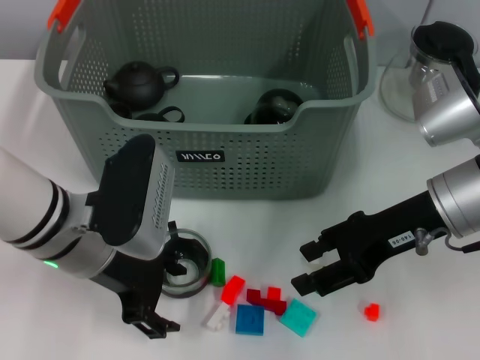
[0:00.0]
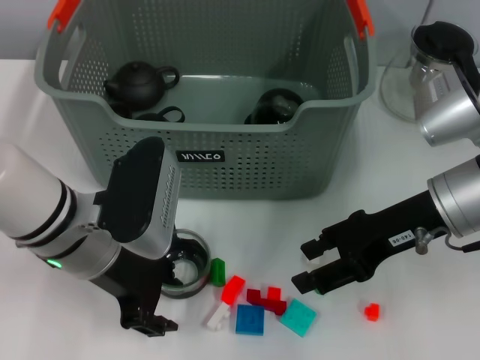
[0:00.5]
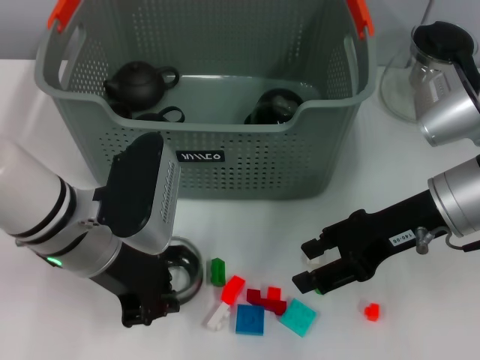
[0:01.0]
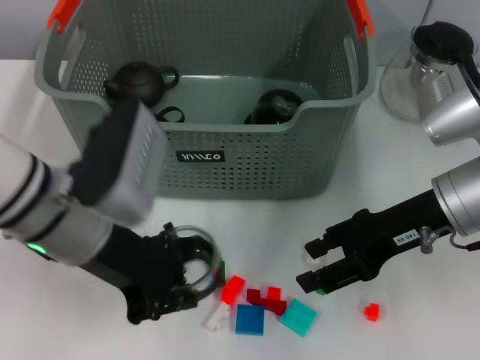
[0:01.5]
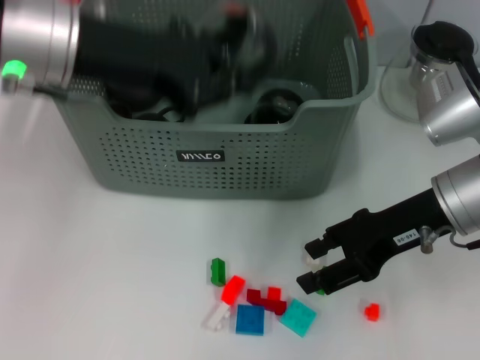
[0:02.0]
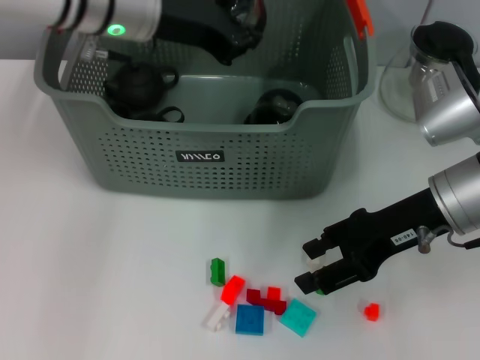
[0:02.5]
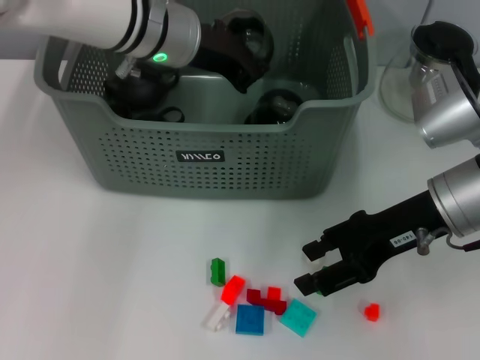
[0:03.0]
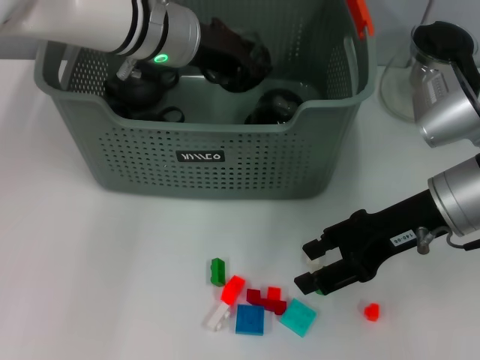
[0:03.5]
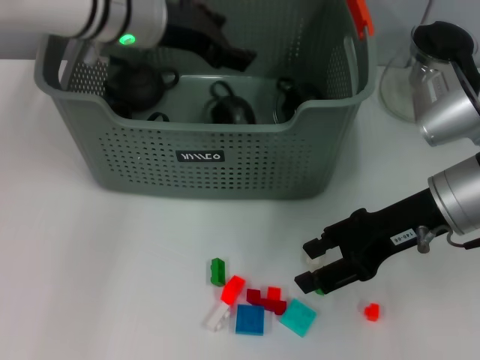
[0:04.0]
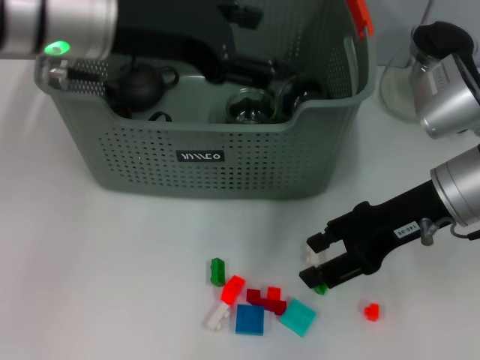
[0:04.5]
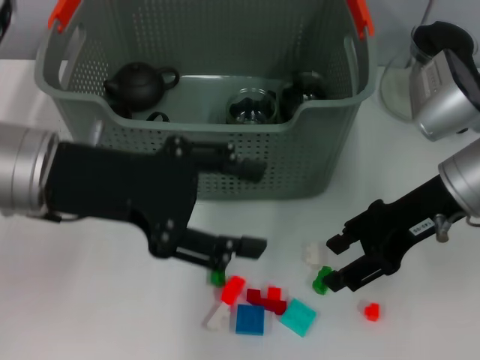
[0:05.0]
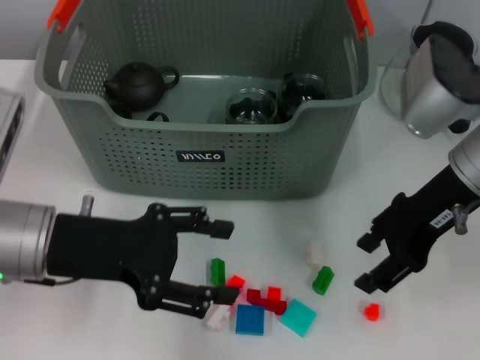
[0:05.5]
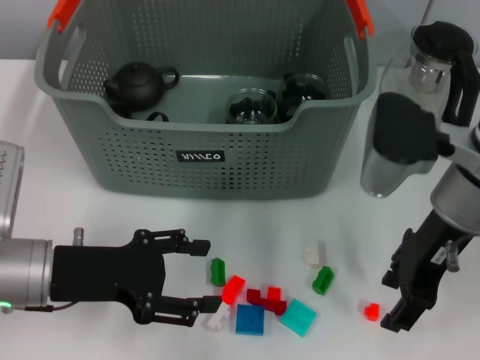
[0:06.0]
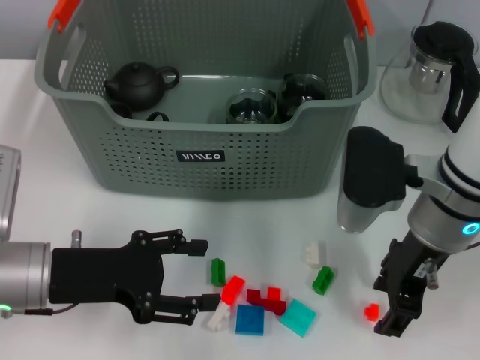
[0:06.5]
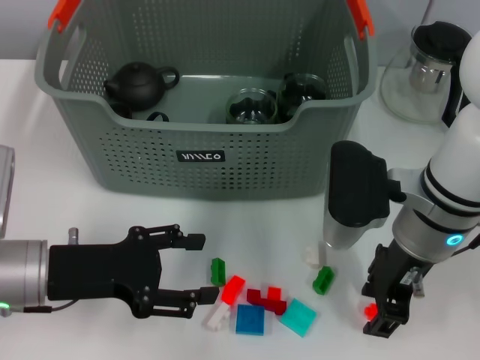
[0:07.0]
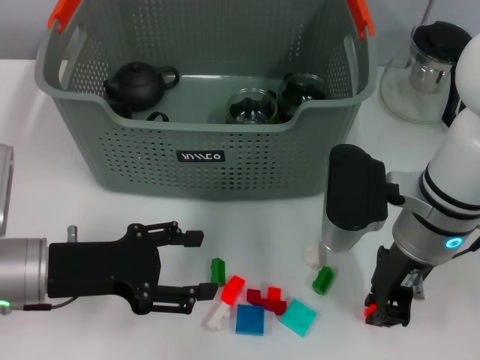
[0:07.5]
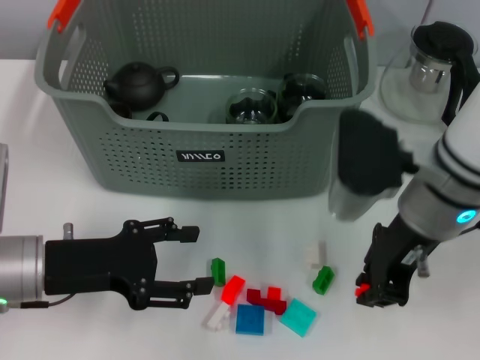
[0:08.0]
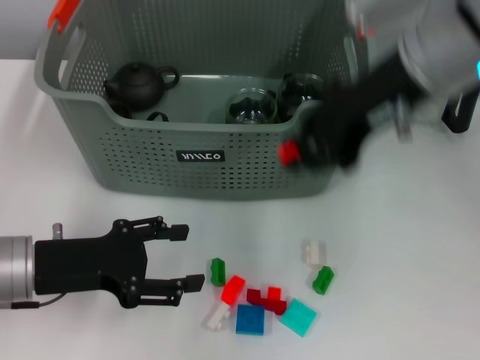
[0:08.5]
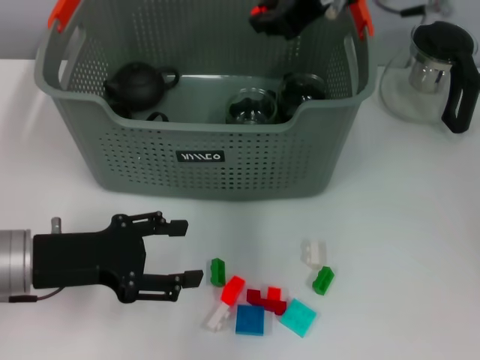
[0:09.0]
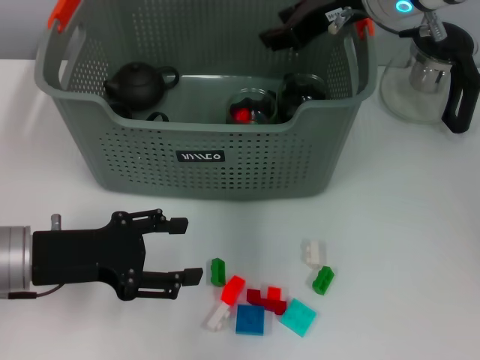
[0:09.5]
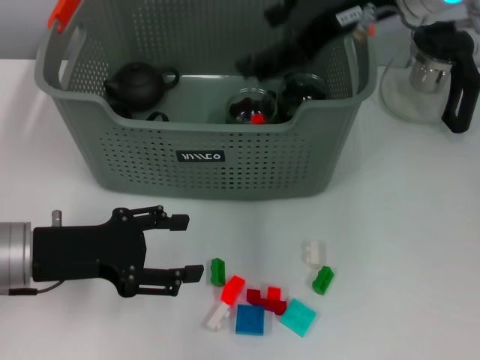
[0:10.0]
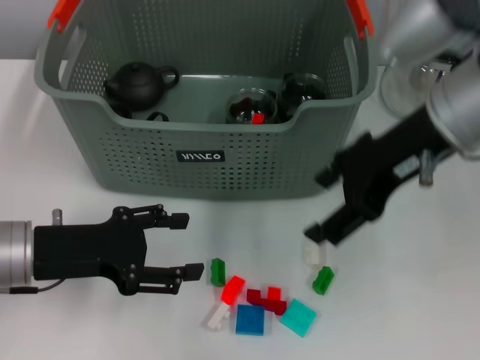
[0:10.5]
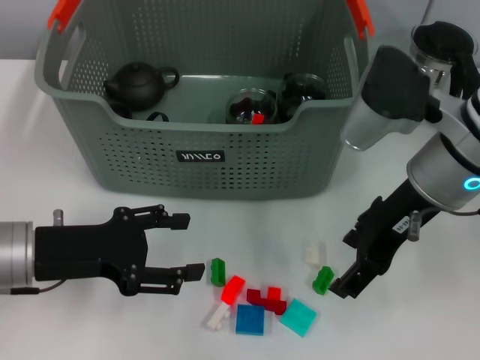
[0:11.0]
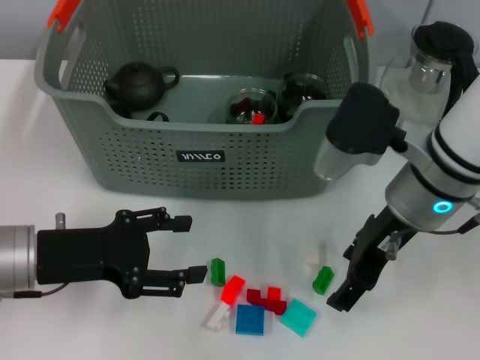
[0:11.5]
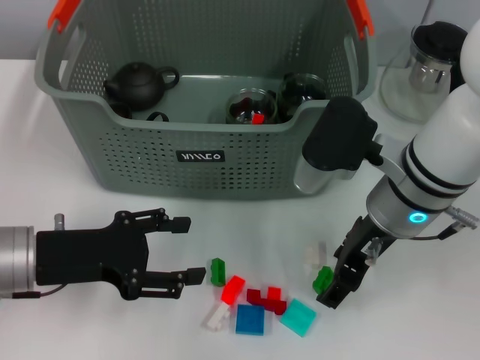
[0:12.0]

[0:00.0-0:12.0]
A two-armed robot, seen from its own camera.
Task of the whole recording: pick up the teacup on the table and place it into the storage bin, pick up the block on the table and place it into the storage bin.
Step, 0:01.5 to 0:04.0: Place the cup in the storage box with left gripper.
Step, 0:04.5 to 0:07.0: Grasp the orange block with right gripper.
Step, 0:08.0 to 0:09.5: Place the orange block in the storage box with right gripper.
0:00.0 to 0:02.0: The left gripper goes about 15 cm upward, and closes its fingers.
0:02.0 to 0:04.0: The left gripper goes about 10 cm forward, and opens.
0:04.0 to 0:06.0: The left gripper is displaced backward, downward and to the left by about 25 cm.
0:06.0 to 0:08.0: The right gripper closes its fingers.
0:08.0 to 0:10.0: The right gripper moves up and down over approximately 15 cm, changing direction 2 times, and opens up.
0:10.0 to 0:12.0: The right gripper moves downward, about 15 cm.

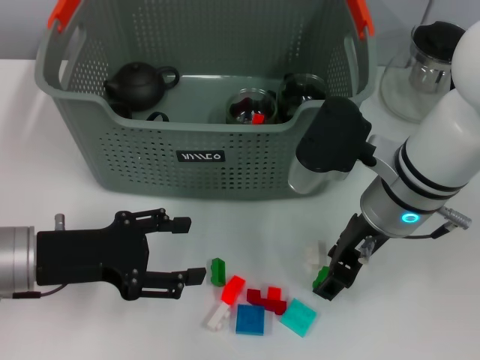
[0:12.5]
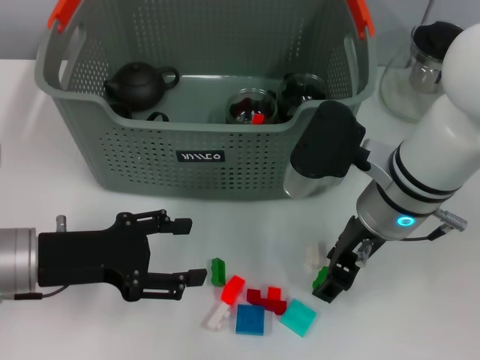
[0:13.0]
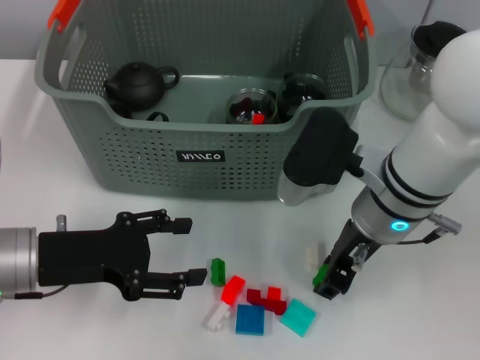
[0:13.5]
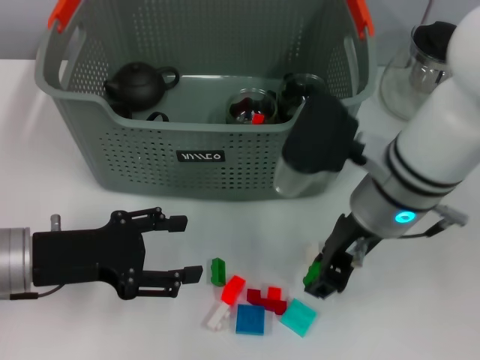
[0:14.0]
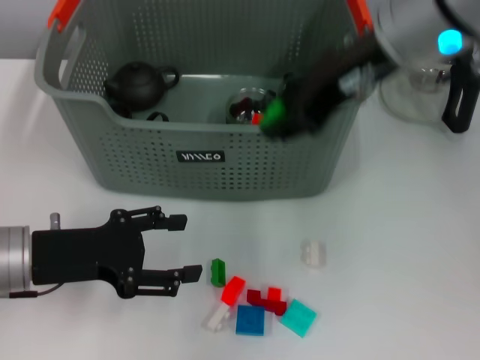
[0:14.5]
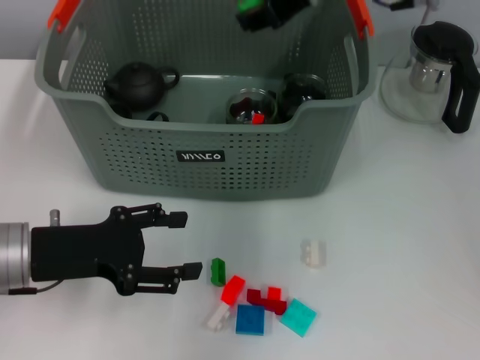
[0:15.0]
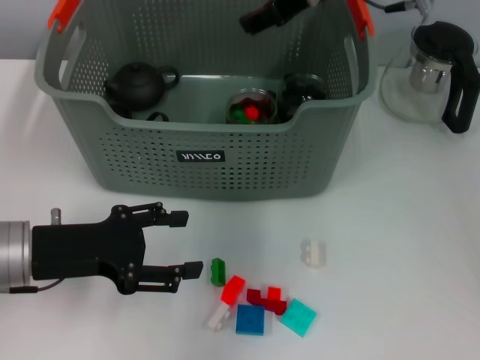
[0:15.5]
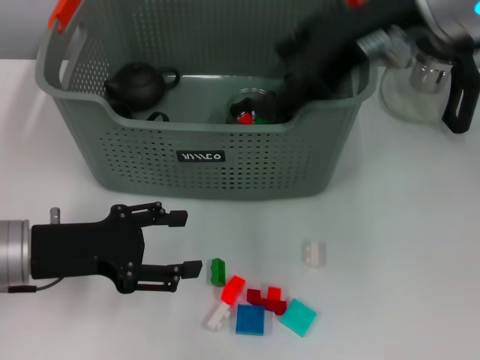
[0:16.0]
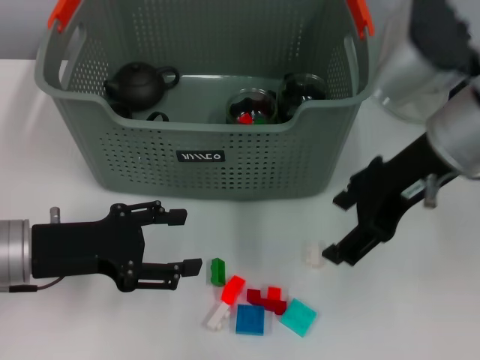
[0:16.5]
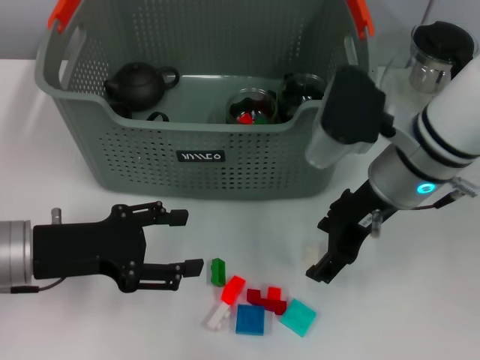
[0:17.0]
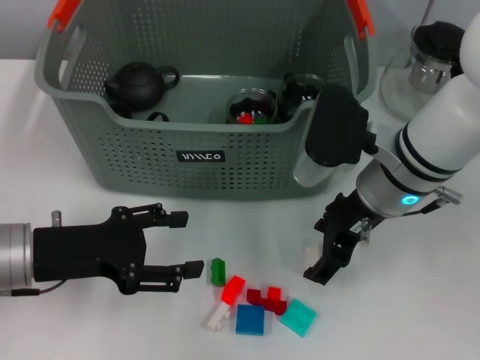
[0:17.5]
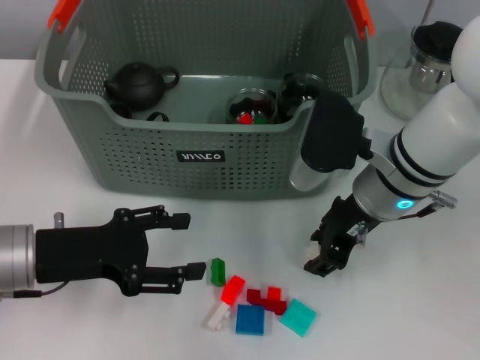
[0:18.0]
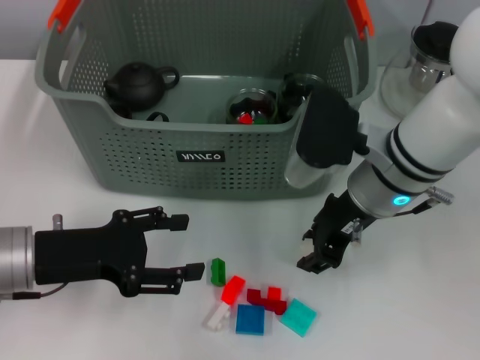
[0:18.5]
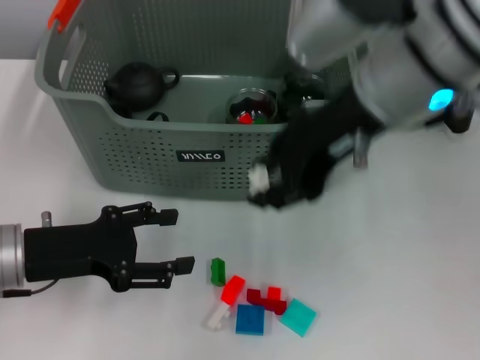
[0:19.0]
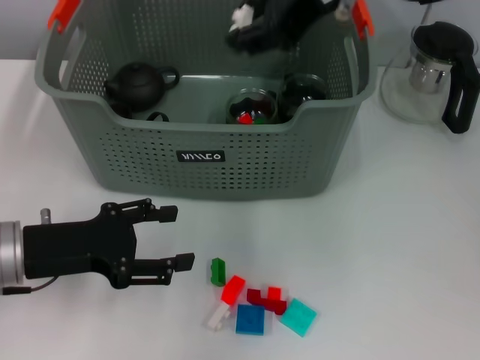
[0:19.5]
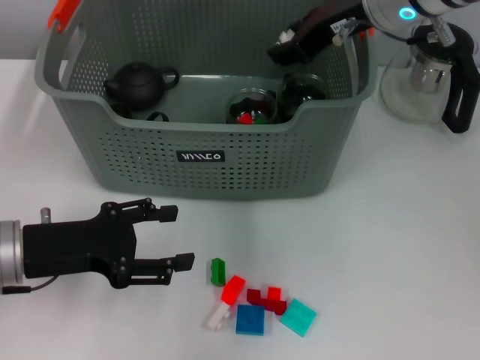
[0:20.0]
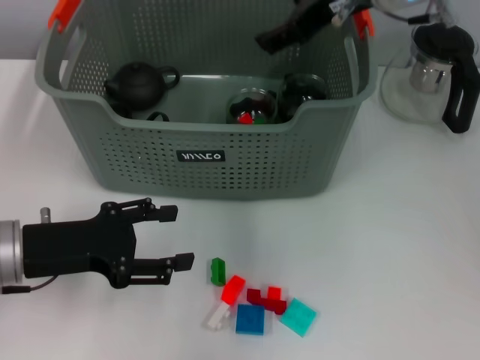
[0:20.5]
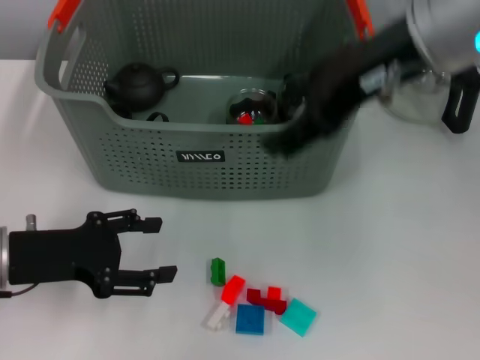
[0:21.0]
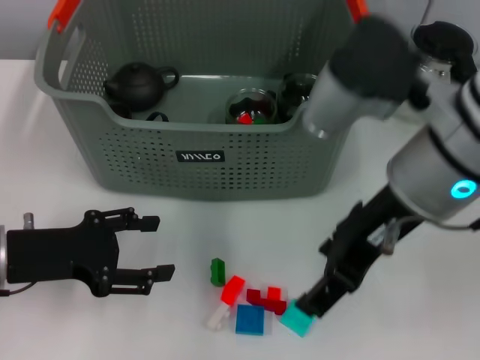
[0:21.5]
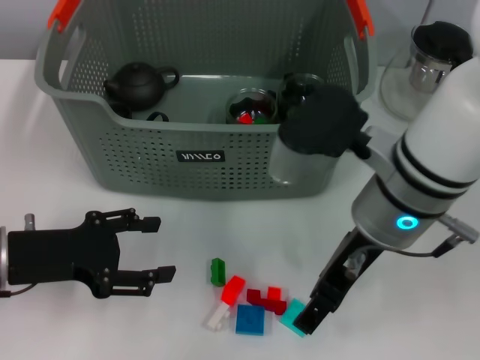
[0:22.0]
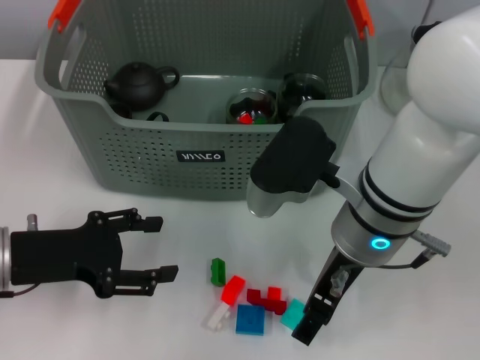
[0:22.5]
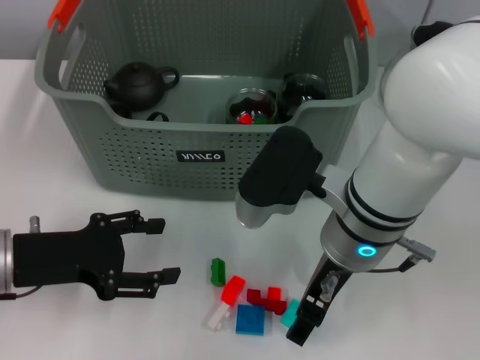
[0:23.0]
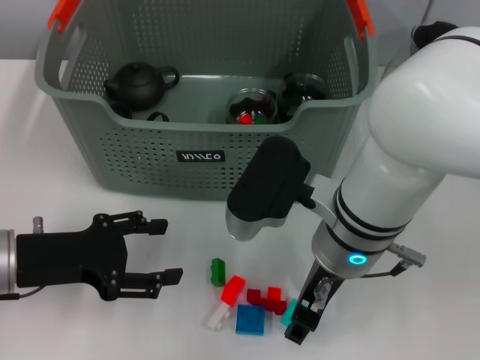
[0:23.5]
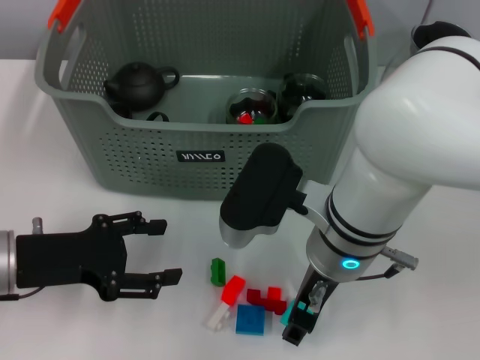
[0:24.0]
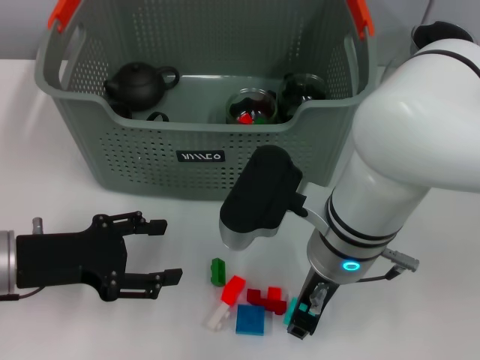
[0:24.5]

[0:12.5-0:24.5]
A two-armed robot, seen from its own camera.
Task of the whole recording: pick up the teacup on the table and place it into the storage bin, pick up the block on the table and place it into the storage bin.
Step, 0:14.0 to 0:15.5: Place the green block in the storage box with right gripper.
Step, 0:16.0 to 0:18.0: Grasp the white block with right gripper.
Step, 0:18.5 to 0:20.5: Place the white block in the storage box with right gripper.
Step, 0:21.0 to 0:24.5: Grasp the light blue block with right gripper.
0:12.5 to 0:14.5: The right gripper moves upward, some 20 cm.
0:14.5 to 0:16.5: The right gripper moves downward and to the right, some 10 cm, moves approximately 10 cm forward and comes back, and opens.
0:16.5 to 0:18.5: The right gripper heads downward, covering roughly 10 cm, and closes its fingers.
0:18.5 to 0:20.5: The right gripper moves upward and forward, about 15 cm, and opens.
0:20.5 to 0:22.5: The right gripper goes roughly 15 cm backward and downward.

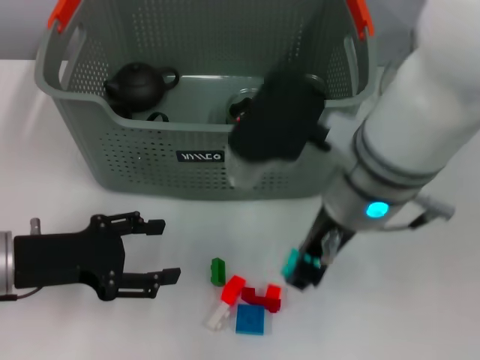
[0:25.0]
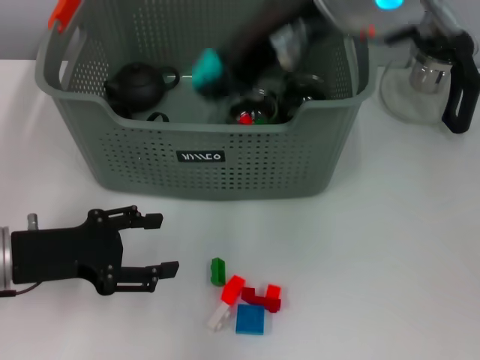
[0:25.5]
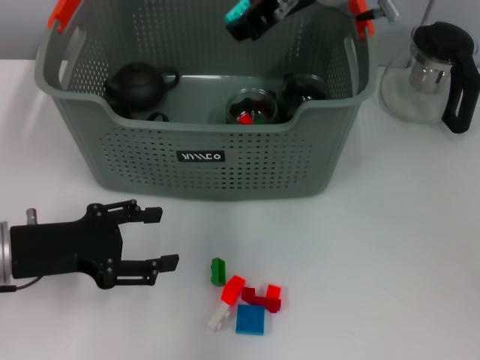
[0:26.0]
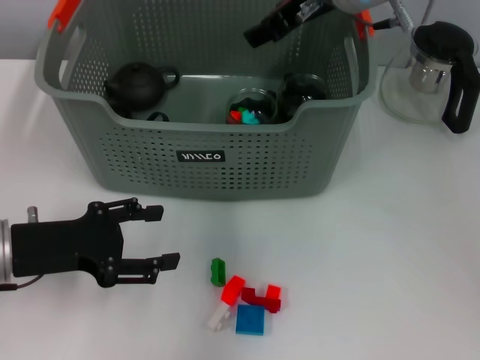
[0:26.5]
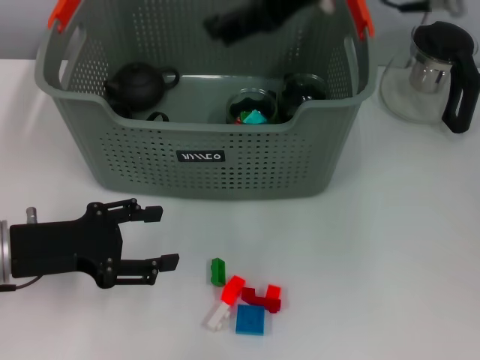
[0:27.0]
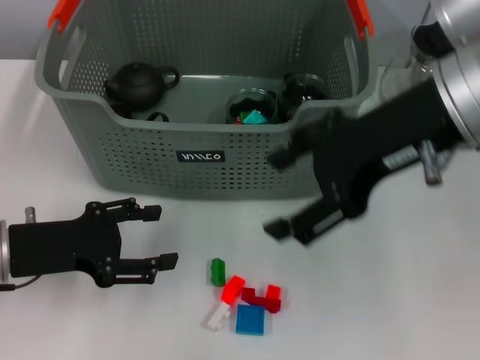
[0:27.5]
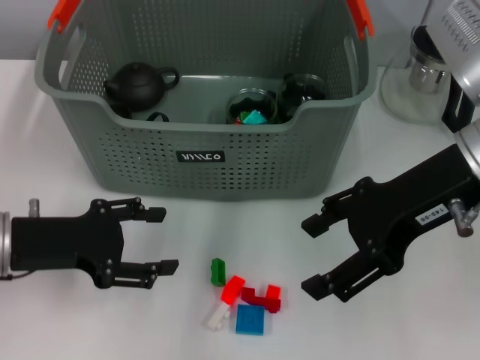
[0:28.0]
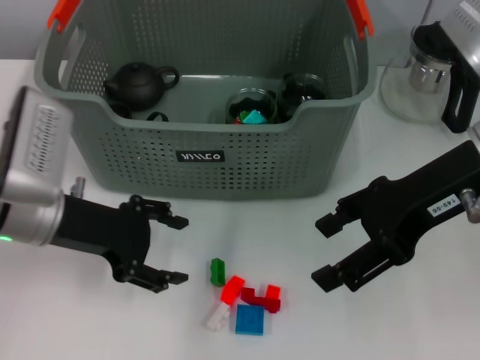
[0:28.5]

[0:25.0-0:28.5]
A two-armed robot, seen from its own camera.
Task of the whole recording: pick up the teacup on the table and place it into the storage bin, pick up the block on the table and place it into the storage bin.
Step, 0:25.0 to 0:26.5: Place the light blue block in the storage box with right gripper.
0:25.0 to 0:27.0: The right gripper goes up and down, some 15 cm each way, reversing 2 times, and opens its fingers.
0:27.0 to 0:28.5: The left gripper ends up roughly 5 cm from where it was, while the right gripper is displaced downward, to the right and backward by approximately 15 cm.
